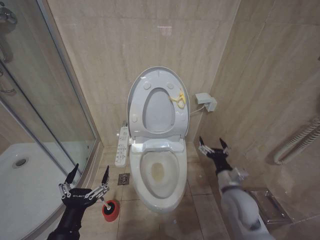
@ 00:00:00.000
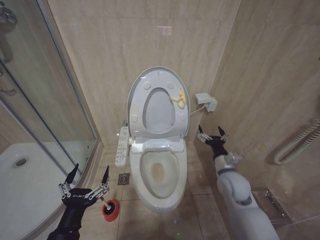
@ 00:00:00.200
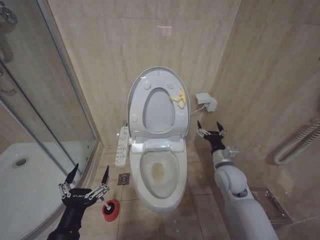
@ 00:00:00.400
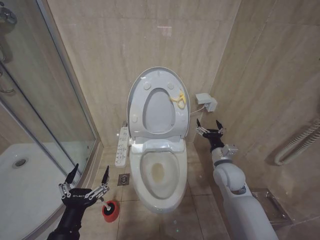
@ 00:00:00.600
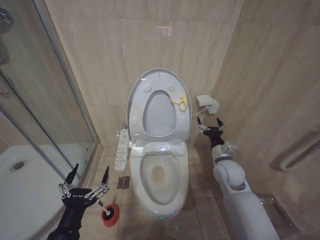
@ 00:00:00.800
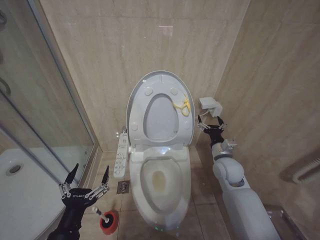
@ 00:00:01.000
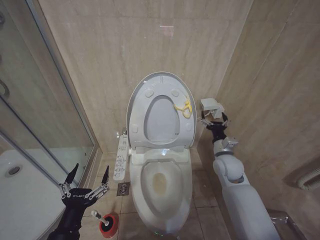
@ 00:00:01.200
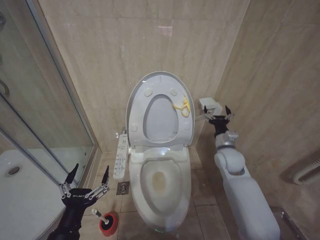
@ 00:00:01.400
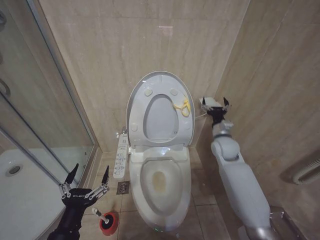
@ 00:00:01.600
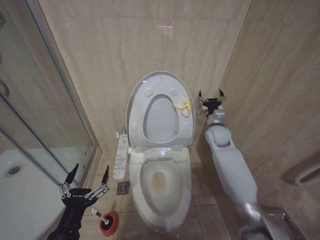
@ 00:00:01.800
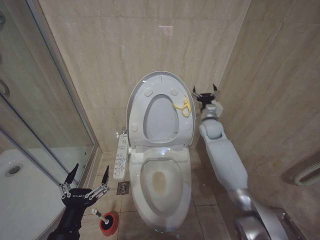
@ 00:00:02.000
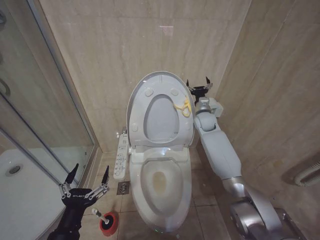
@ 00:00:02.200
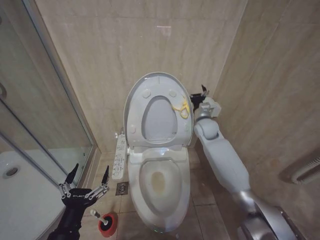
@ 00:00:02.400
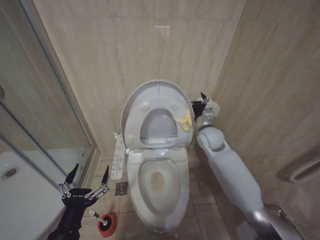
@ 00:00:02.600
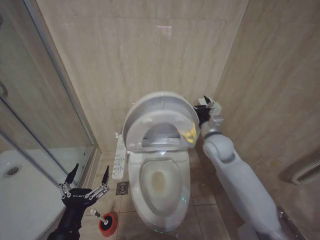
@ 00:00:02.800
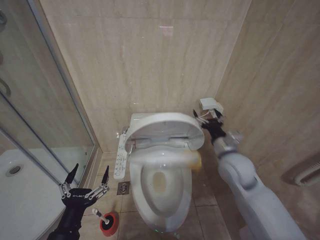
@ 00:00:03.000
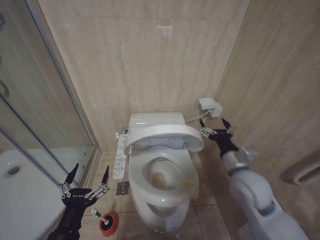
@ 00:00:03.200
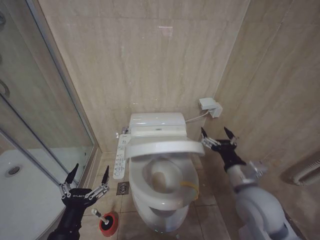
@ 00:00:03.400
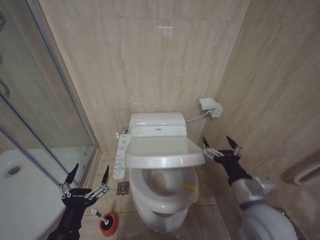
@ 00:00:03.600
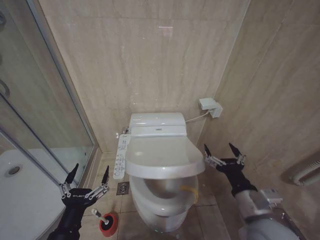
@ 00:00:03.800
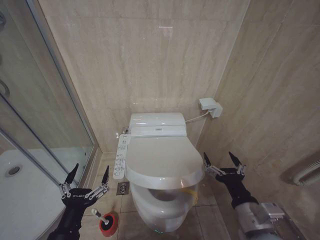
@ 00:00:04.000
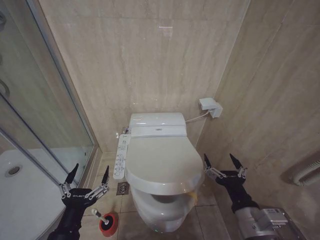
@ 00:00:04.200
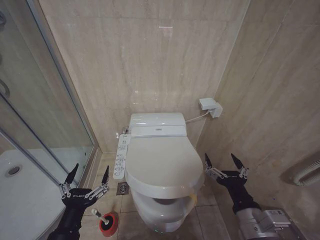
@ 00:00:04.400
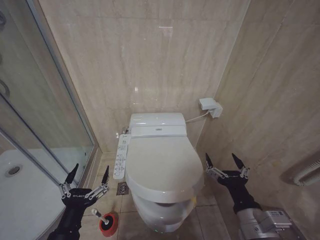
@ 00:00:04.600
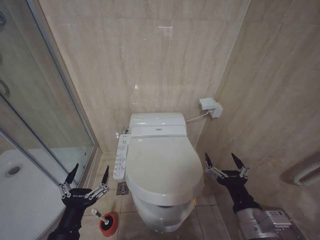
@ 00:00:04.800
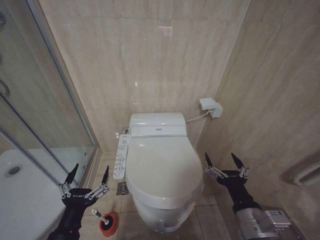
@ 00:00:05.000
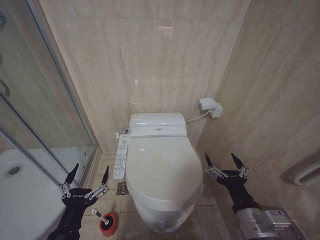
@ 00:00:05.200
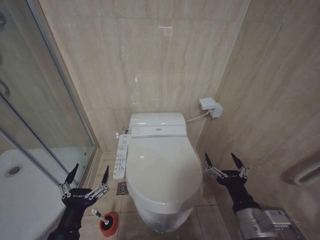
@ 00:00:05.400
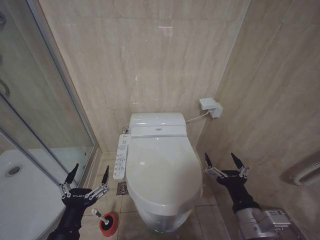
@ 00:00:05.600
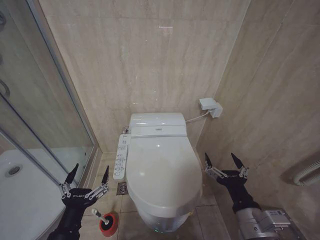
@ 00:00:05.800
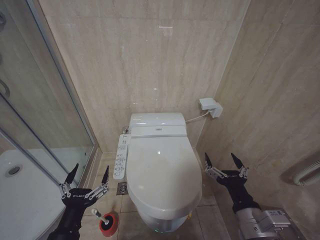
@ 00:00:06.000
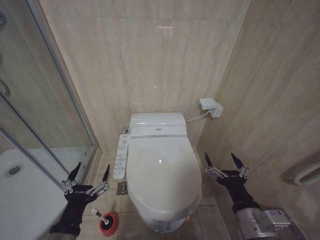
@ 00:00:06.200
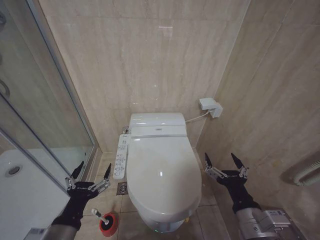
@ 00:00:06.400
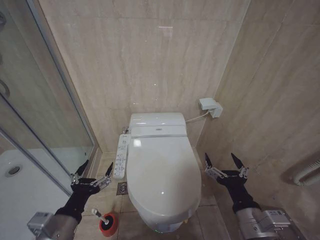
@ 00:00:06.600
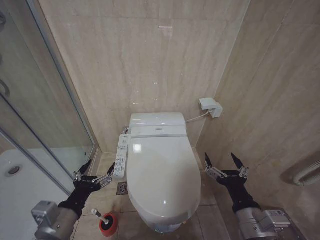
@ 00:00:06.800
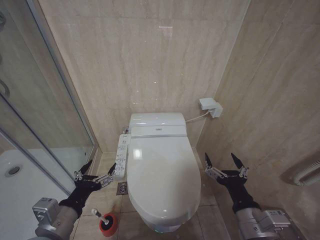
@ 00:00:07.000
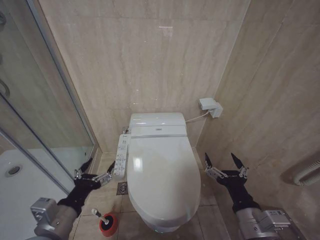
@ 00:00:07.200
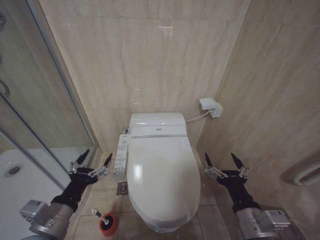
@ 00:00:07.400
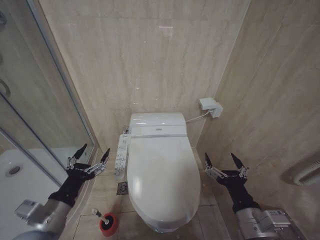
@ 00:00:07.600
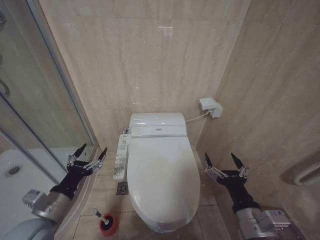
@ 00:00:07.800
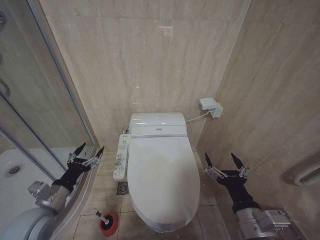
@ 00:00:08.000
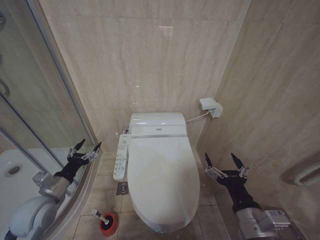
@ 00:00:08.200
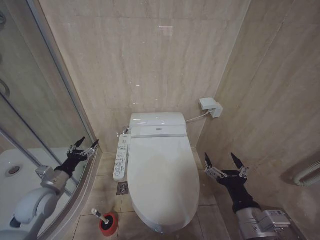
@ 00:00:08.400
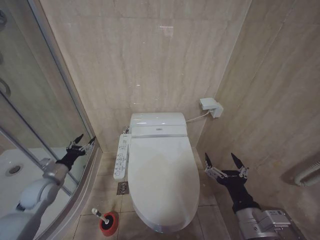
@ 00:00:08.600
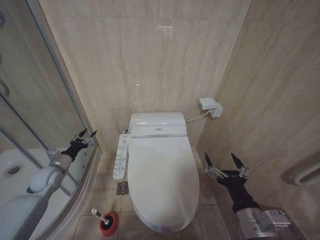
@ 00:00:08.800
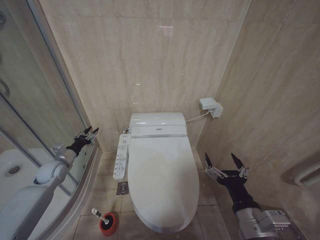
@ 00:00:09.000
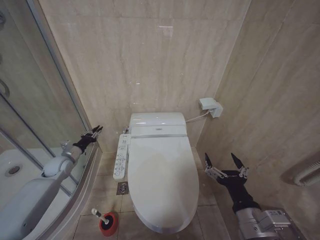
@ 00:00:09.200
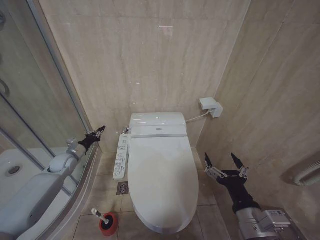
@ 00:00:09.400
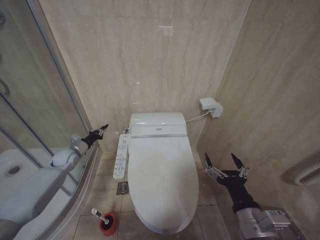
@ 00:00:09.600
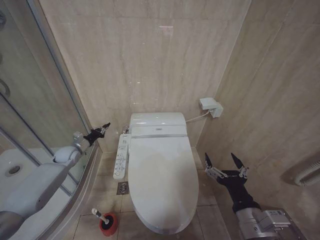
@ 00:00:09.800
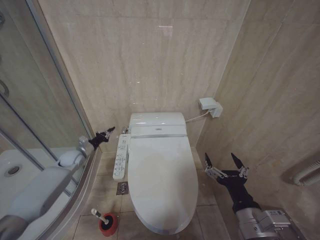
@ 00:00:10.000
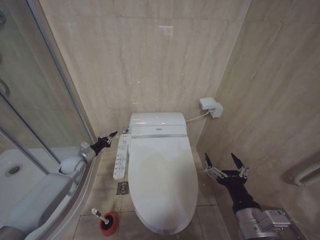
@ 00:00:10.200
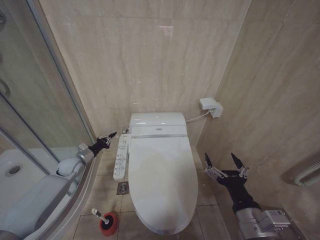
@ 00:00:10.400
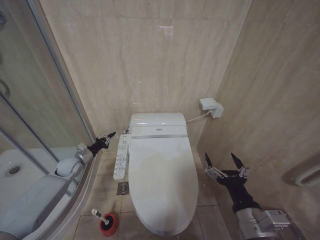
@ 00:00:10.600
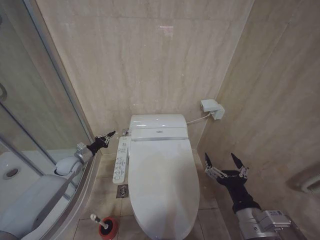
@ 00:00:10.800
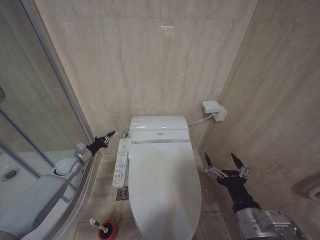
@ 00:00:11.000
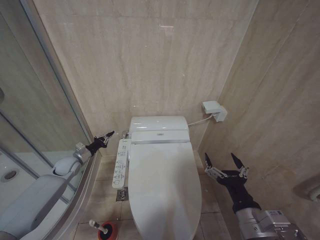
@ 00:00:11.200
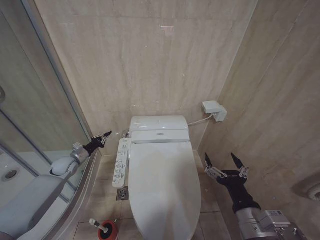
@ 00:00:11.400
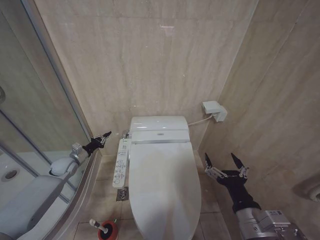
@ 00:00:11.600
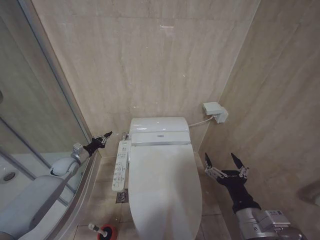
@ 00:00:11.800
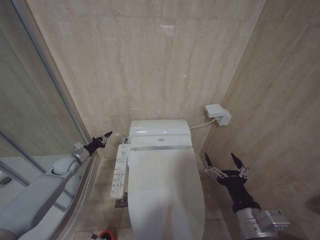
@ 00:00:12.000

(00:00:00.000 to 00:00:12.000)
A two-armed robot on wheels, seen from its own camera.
Task of the whole recording: Open the toilet lid, clean the toilet bowl with a toilet brush, close the toilet lid, and flush.
00:00:00.000 - 00:00:01.600: The right gripper moves forward, roughly 20 cm.
00:00:01.600 - 00:00:03.000: The right gripper is displaced backward by about 10 cm.
00:00:03.000 - 00:00:04.400: The right gripper shifts approximately 20 cm backward.
00:00:04.400 - 00:00:06.000: Both grippers stay put.
00:00:06.000 - 00:00:07.600: The left gripper heads forward, covering some 5 cm.
00:00:07.600 - 00:00:09.000: The left gripper heads forward and to the left, covering about 30 cm.
00:00:09.000 - 00:00:10.400: The left gripper moves forward, roughly 5 cm, and closes.
00:00:10.400 - 00:00:12.000: The grippers stay close to where they were, moving slightly.

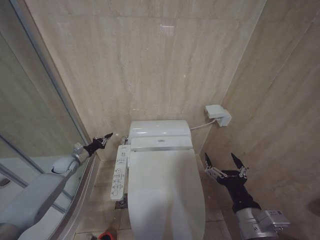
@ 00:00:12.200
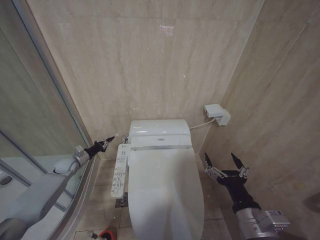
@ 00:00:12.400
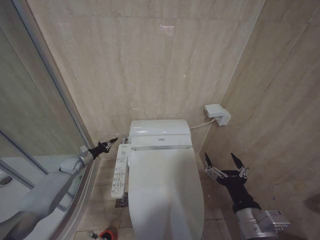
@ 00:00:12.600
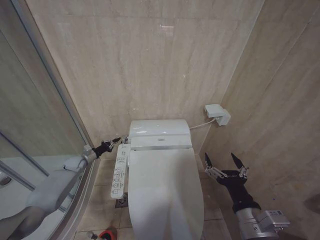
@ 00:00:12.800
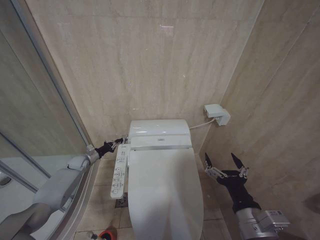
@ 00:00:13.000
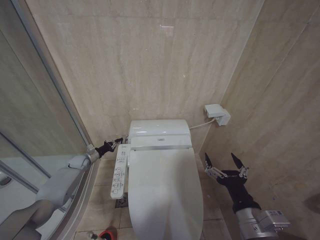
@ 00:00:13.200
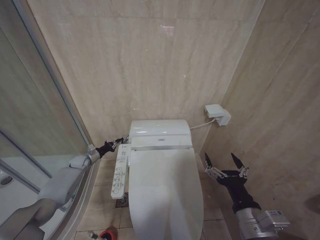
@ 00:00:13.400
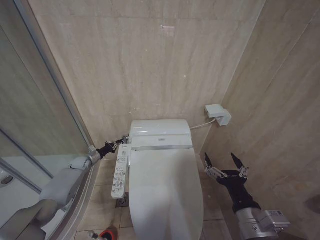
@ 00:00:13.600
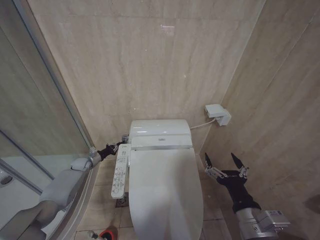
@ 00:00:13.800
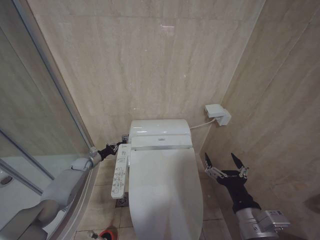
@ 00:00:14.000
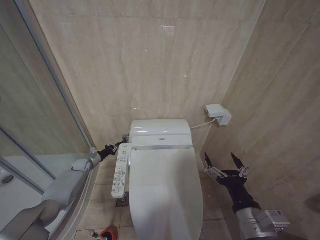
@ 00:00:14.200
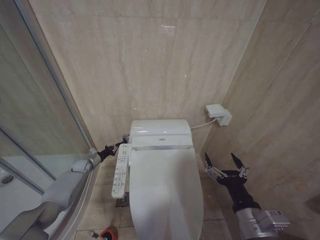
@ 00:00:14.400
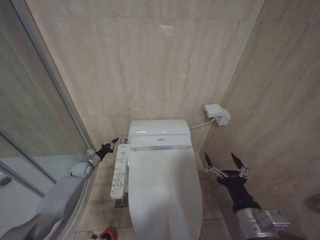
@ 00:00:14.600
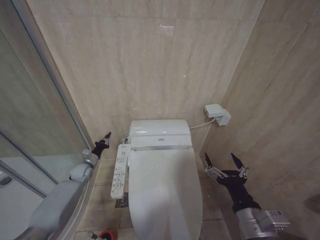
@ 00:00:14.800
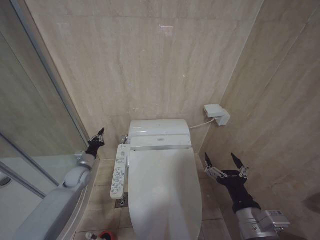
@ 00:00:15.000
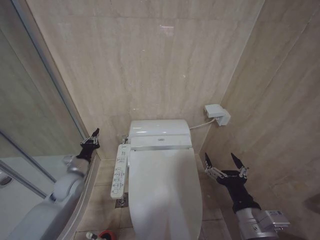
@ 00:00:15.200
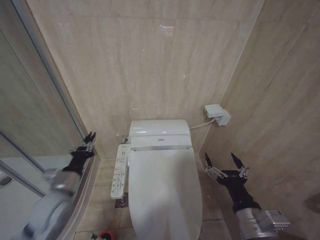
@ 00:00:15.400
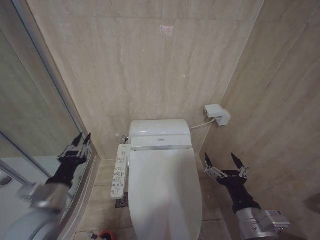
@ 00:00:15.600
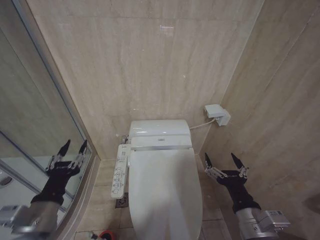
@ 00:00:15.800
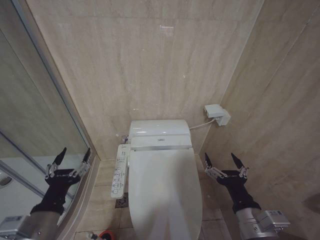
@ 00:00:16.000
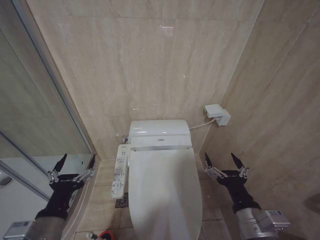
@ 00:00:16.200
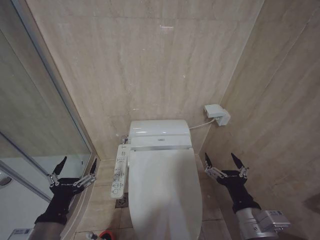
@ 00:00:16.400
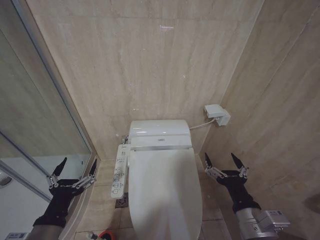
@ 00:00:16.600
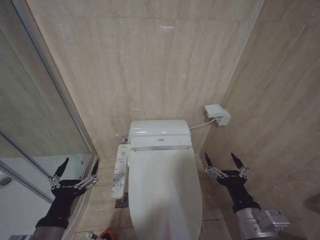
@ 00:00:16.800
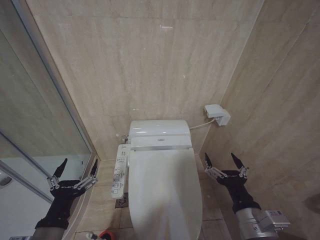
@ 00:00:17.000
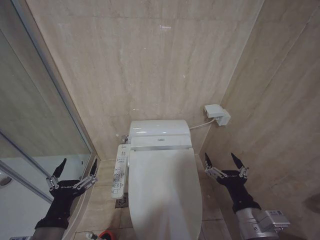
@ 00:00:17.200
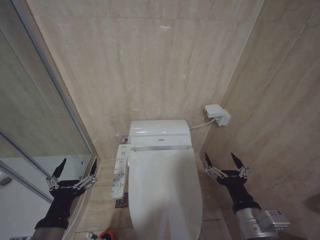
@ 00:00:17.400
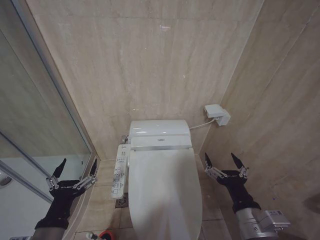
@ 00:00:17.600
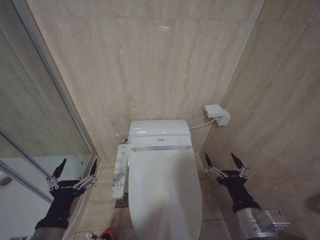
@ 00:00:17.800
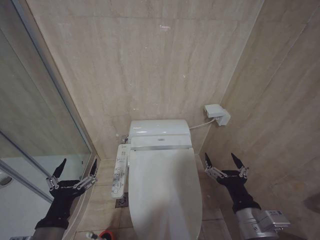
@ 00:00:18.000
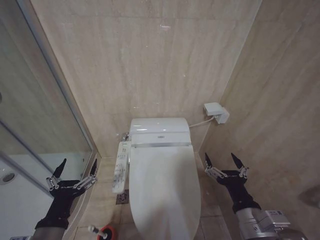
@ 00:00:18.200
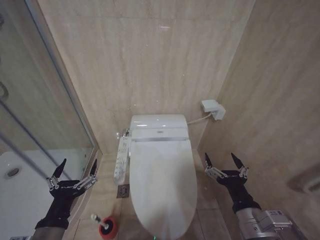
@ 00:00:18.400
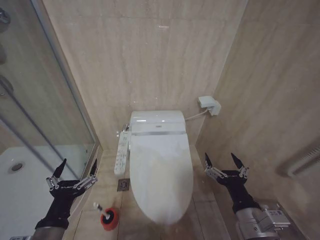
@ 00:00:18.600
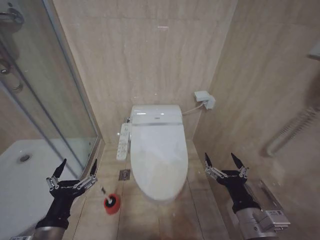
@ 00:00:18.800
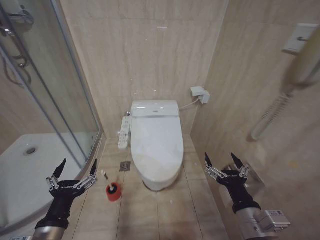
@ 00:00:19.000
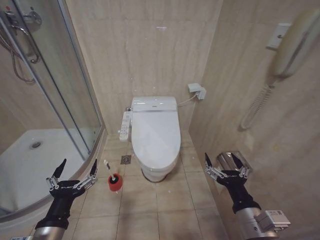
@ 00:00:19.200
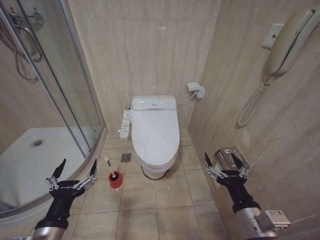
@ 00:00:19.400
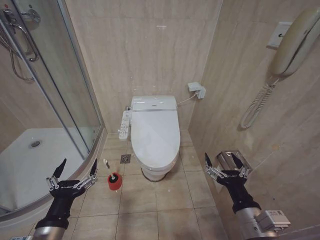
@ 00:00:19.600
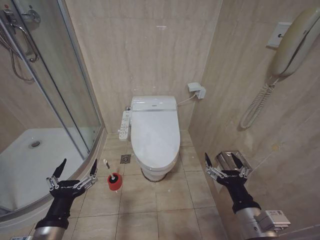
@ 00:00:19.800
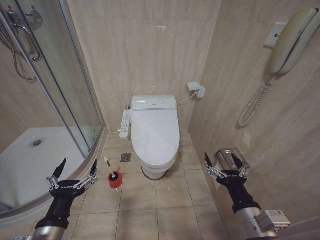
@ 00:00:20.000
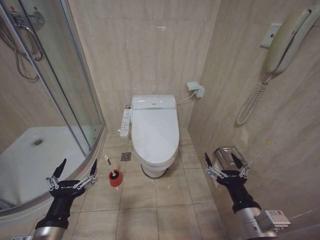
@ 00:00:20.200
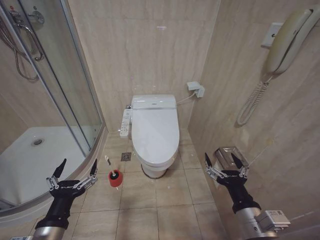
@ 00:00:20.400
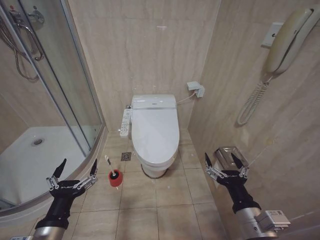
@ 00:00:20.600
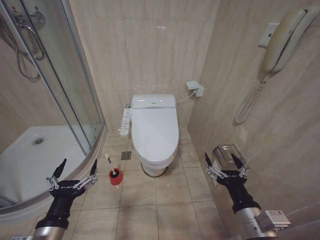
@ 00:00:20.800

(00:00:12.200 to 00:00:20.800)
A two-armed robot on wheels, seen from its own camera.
Task of the whole recording: Open the toilet lid, clean the toilet bowl with a toilet brush, close the toilet lid, and flush.
00:00:12.200 - 00:00:13.600: The left gripper moves downward and forward, some 10 cm.
00:00:13.600 - 00:00:15.000: The left gripper moves backward and to the right, approximately 10 cm.
00:00:15.000 - 00:00:16.600: The left gripper goes about 35 cm backward and upward, and opens up.
00:00:16.600 - 00:00:18.000: The two grippers keep their place.
00:00:19.400 - 00:00:20.800: Neither gripper changes place.
